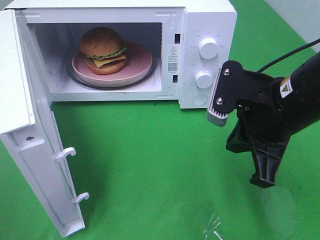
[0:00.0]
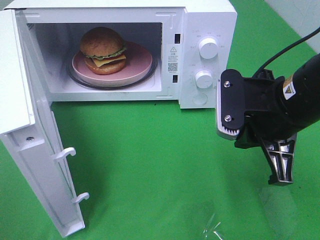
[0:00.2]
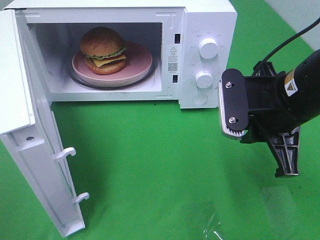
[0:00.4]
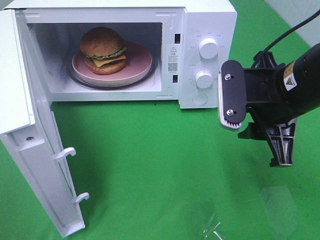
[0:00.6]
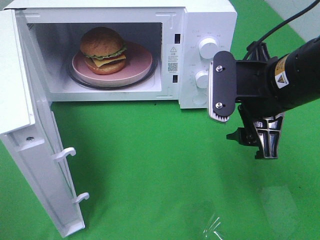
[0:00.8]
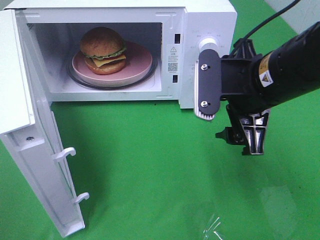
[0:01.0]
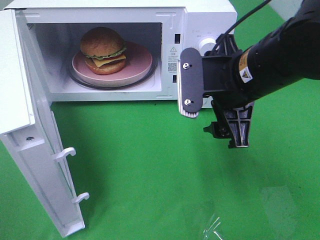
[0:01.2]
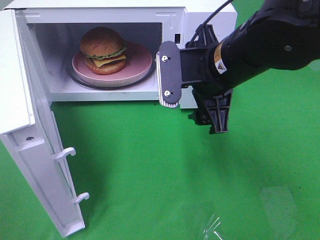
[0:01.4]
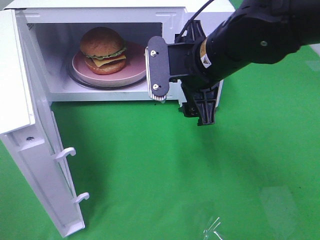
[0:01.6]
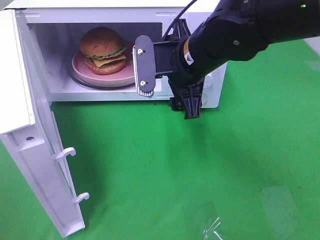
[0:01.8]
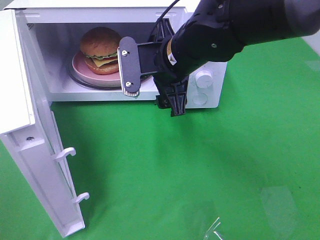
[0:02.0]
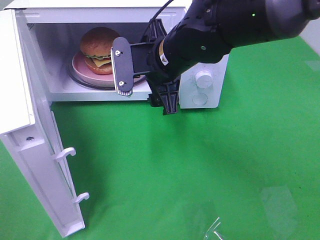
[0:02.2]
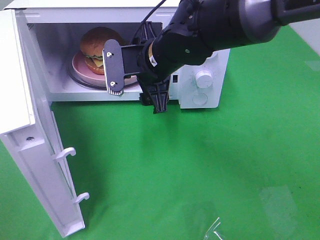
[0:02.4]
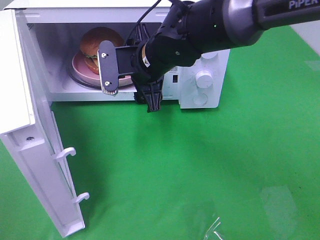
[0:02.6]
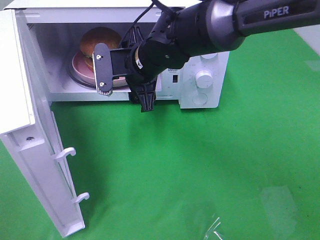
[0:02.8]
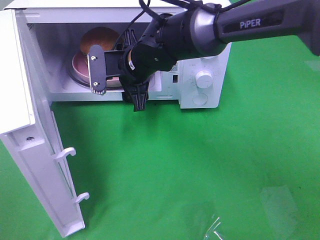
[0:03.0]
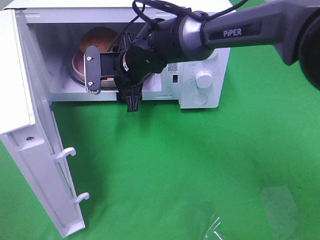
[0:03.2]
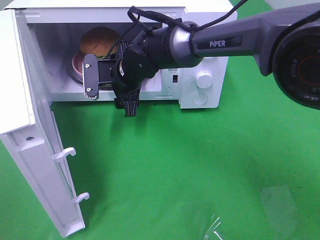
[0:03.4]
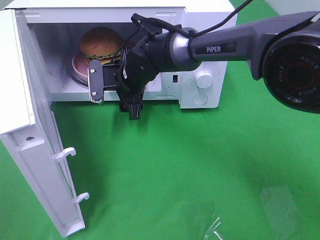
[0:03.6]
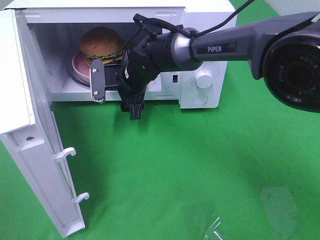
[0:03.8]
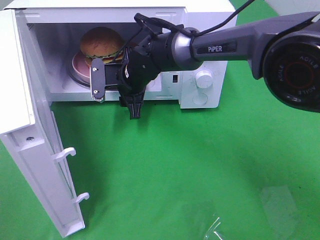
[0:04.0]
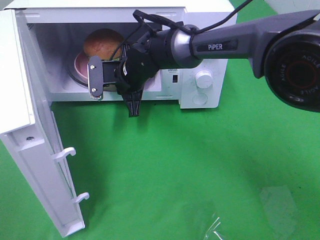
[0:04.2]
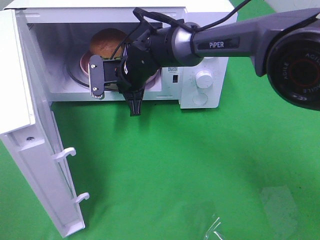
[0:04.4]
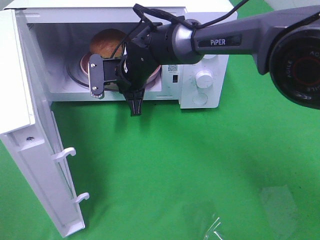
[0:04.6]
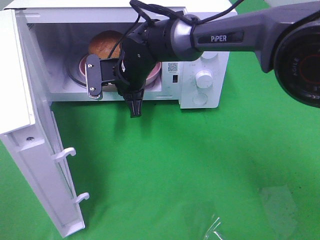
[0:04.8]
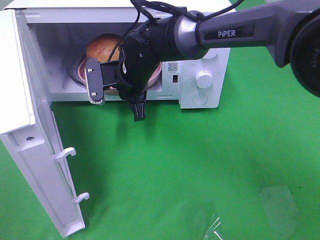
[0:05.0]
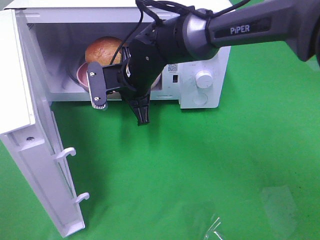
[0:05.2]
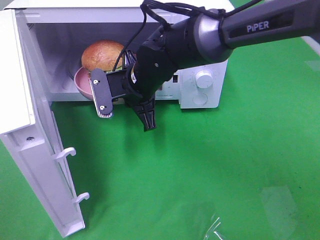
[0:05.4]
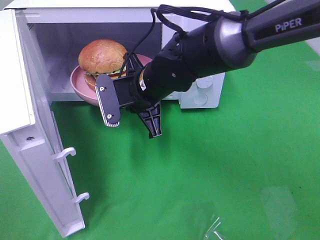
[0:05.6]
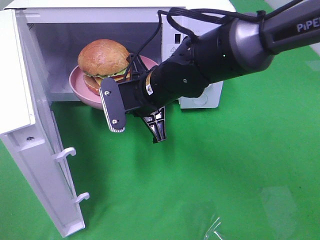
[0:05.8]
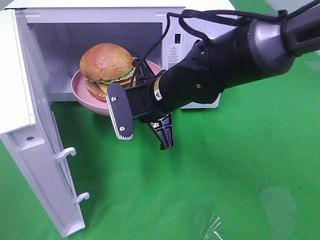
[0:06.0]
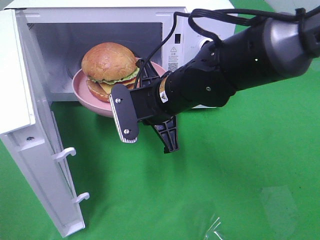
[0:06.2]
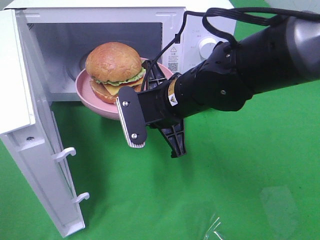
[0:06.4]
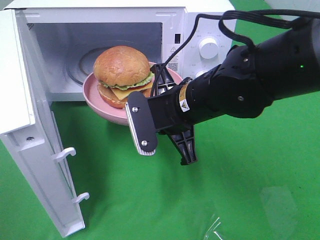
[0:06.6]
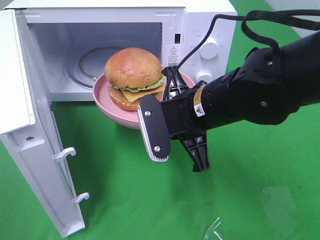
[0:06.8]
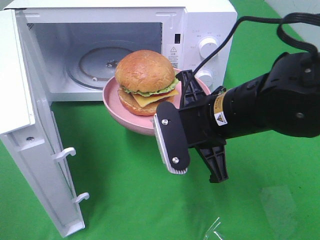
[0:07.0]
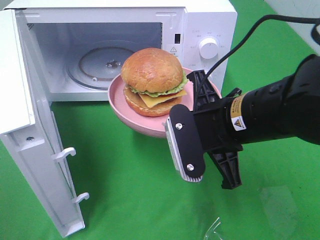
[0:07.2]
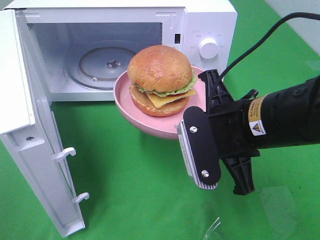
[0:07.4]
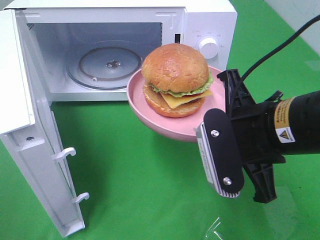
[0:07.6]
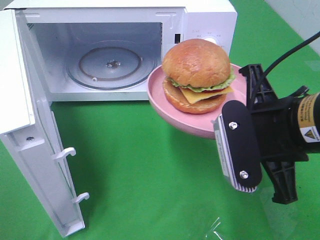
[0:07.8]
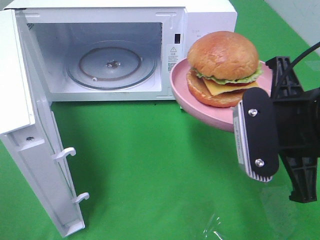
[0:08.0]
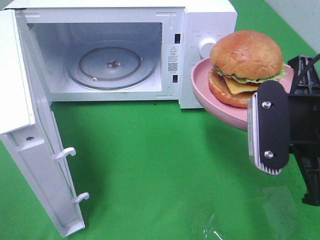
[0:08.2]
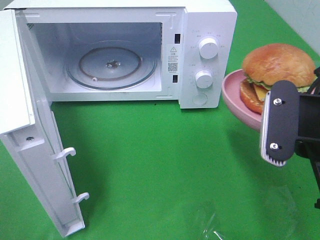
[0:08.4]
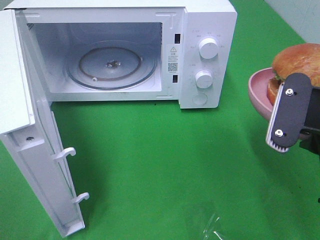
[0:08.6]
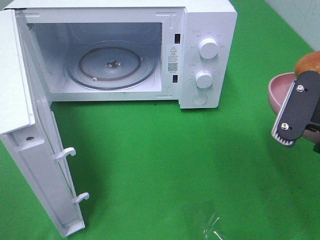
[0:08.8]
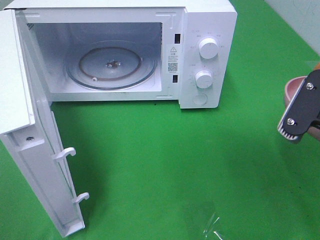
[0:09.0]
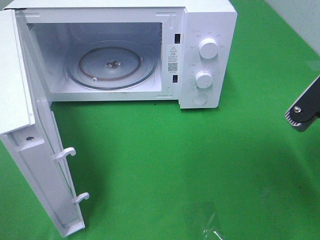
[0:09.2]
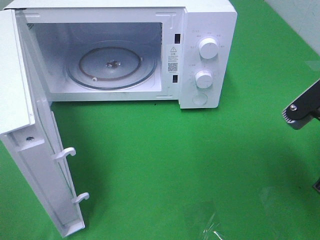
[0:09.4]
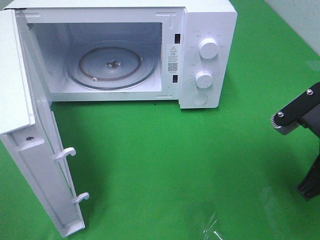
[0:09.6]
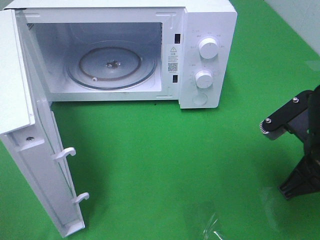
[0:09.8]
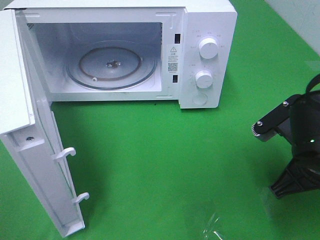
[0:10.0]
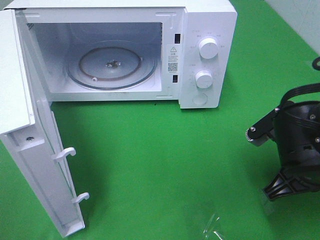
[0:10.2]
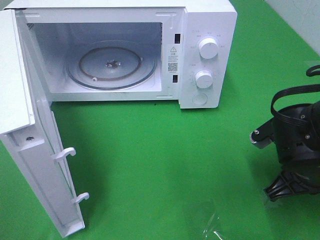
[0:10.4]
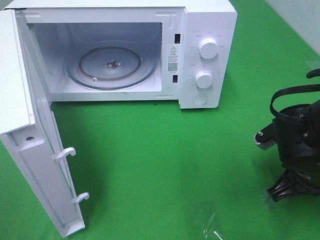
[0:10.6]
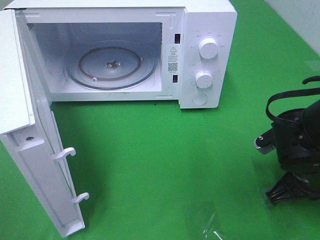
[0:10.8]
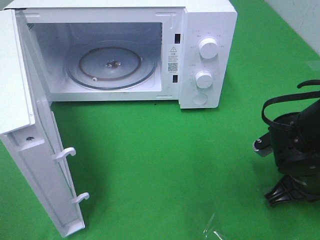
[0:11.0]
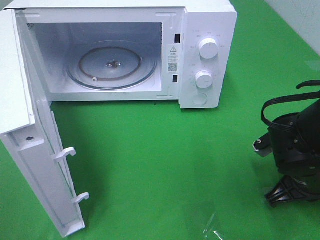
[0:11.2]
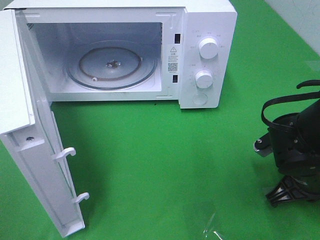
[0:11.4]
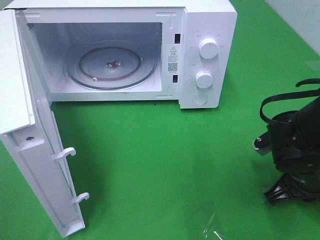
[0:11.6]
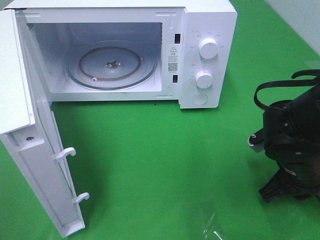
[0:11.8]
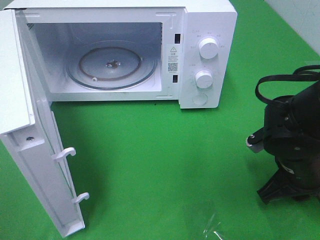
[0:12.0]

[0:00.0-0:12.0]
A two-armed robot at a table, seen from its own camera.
Task of the whole recording: Heat the burger.
Step, 0:00.0 to 0:04.4: Right hand: grab the plate with the hamburger.
0:00.0 to 0:01.6: The right gripper travels to the left and forward by approximately 10 cm, and opens its fingers.
0:01.6 to 0:03.0: The right gripper is displaced to the left, forward and downward by approximately 15 cm.
0:03.0 to 0:04.4: The right gripper closes up.
0:04.4 to 0:06.0: The right gripper travels backward and to the right by roughly 15 cm.
0:06.0 to 0:07.6: The right gripper travels backward, to the right and upward by approximately 20 cm.
0:07.6 to 0:09.0: The right gripper travels to the right by approximately 10 cm.
0:09.0 to 0:10.4: The right gripper heads downward and forward, covering about 15 cm.
0:10.4 to 0:12.0: The grippers move only a little.

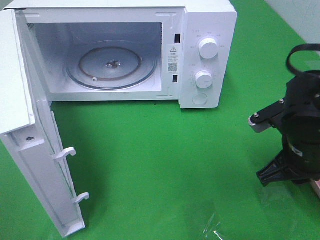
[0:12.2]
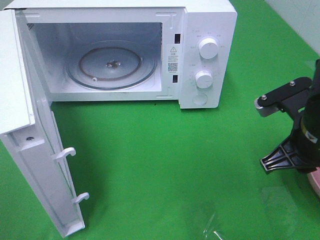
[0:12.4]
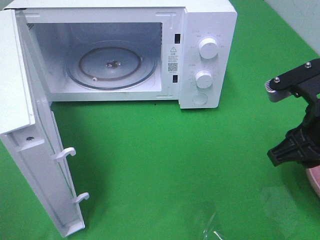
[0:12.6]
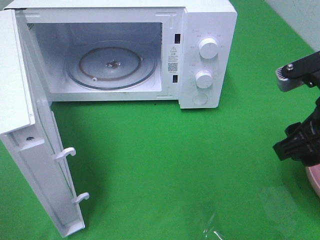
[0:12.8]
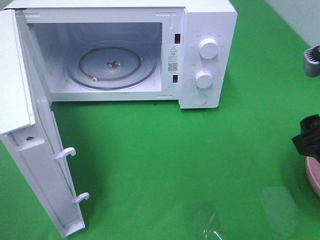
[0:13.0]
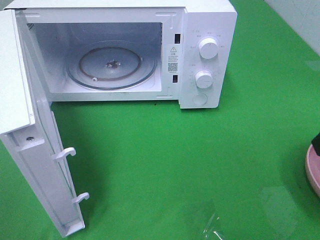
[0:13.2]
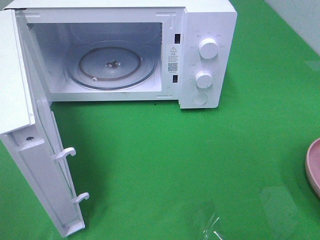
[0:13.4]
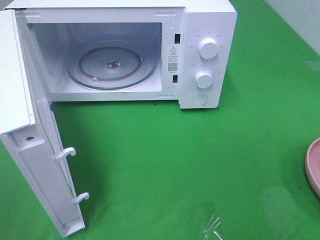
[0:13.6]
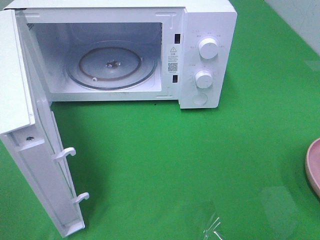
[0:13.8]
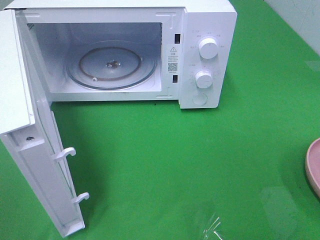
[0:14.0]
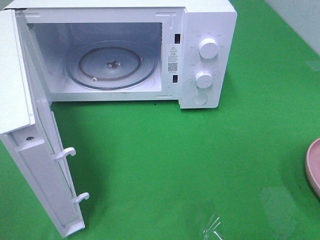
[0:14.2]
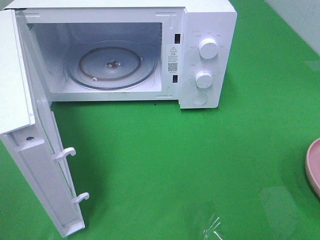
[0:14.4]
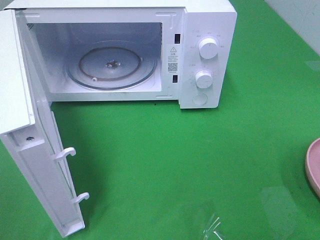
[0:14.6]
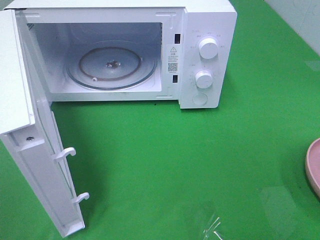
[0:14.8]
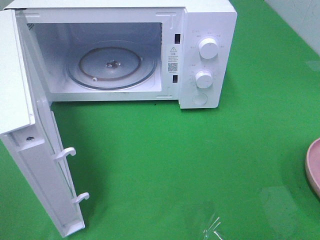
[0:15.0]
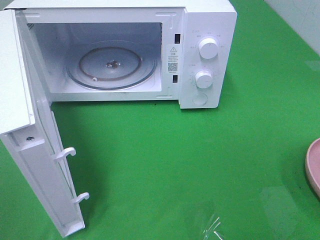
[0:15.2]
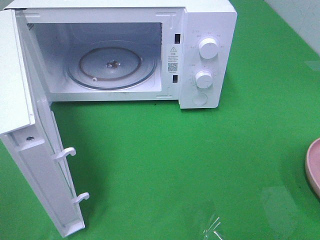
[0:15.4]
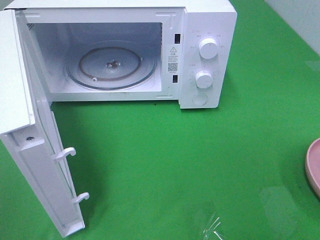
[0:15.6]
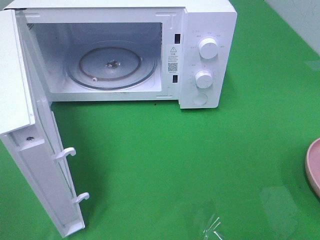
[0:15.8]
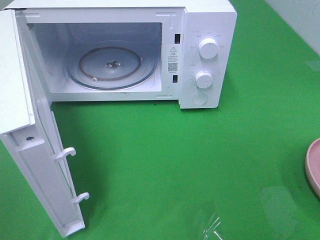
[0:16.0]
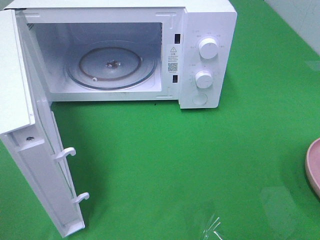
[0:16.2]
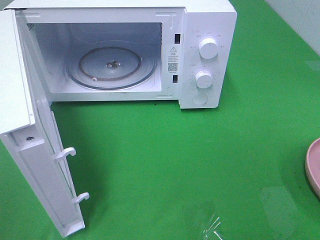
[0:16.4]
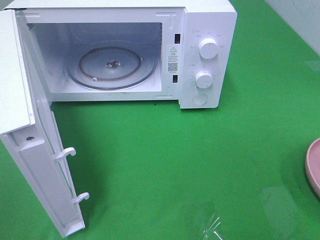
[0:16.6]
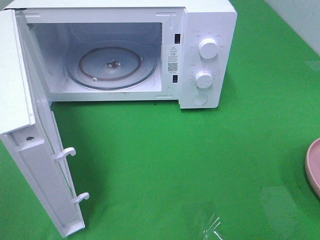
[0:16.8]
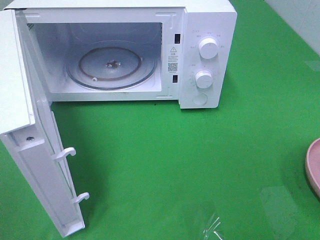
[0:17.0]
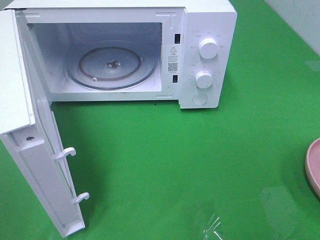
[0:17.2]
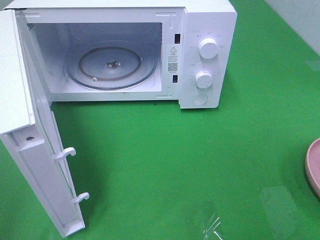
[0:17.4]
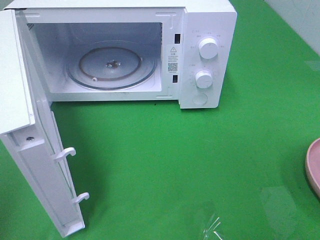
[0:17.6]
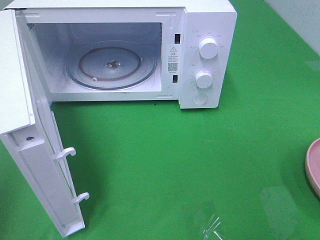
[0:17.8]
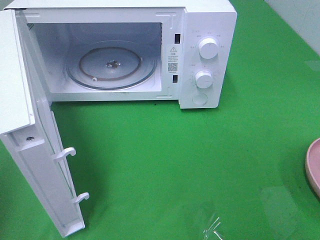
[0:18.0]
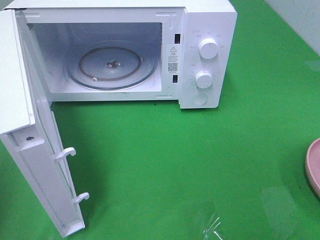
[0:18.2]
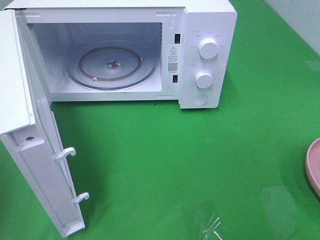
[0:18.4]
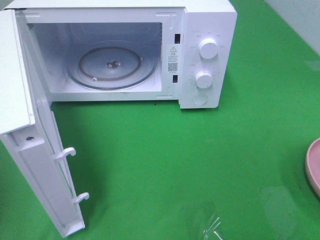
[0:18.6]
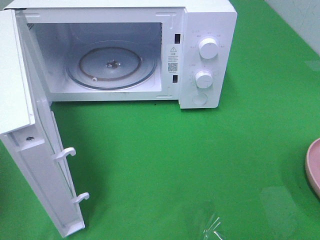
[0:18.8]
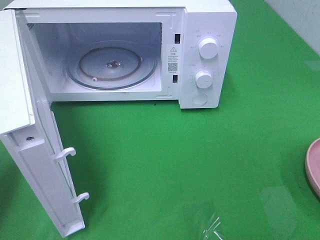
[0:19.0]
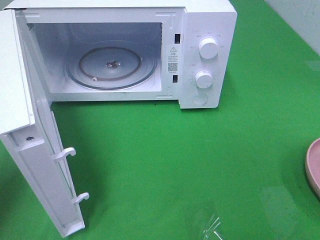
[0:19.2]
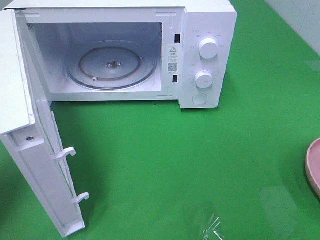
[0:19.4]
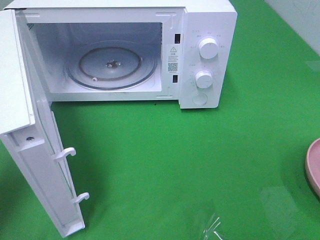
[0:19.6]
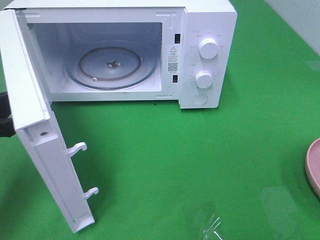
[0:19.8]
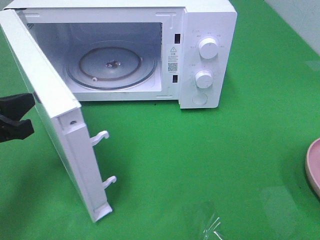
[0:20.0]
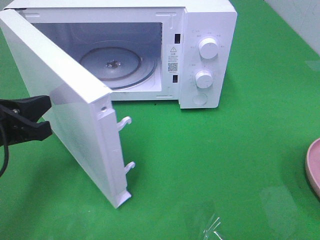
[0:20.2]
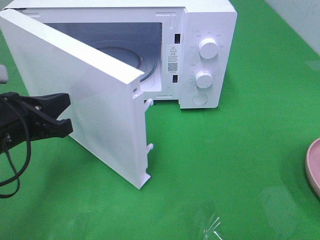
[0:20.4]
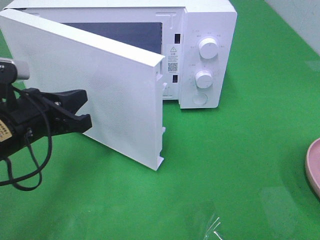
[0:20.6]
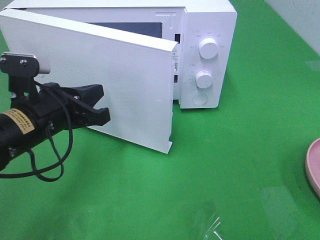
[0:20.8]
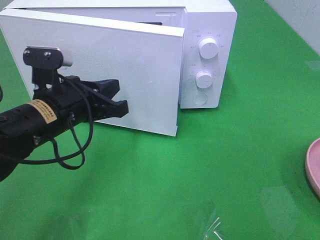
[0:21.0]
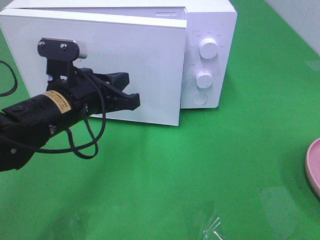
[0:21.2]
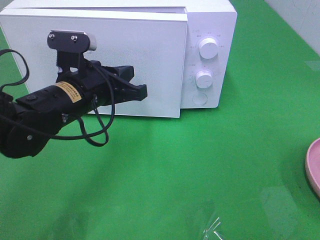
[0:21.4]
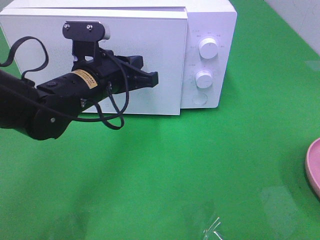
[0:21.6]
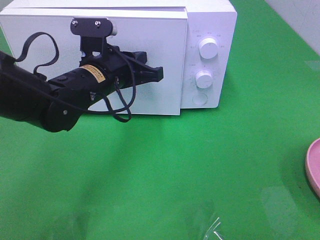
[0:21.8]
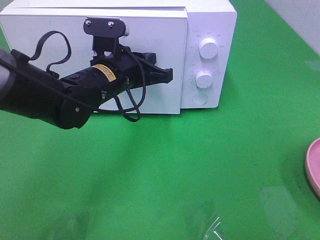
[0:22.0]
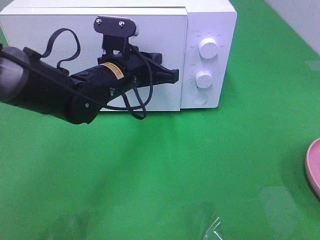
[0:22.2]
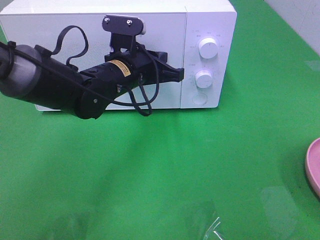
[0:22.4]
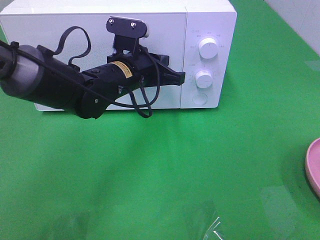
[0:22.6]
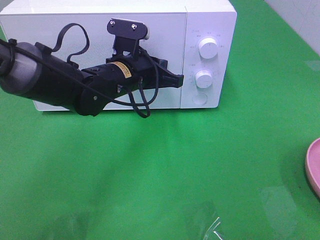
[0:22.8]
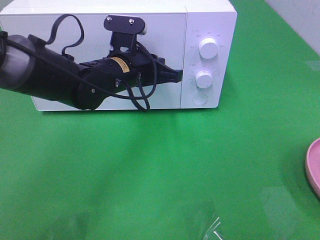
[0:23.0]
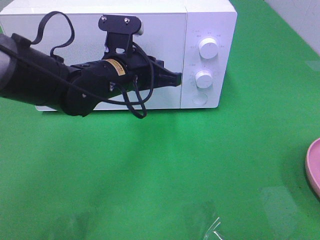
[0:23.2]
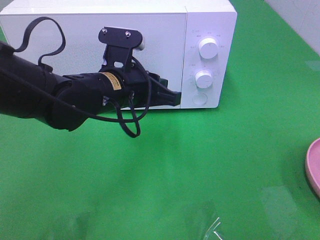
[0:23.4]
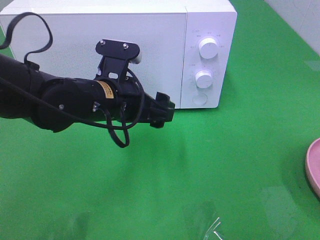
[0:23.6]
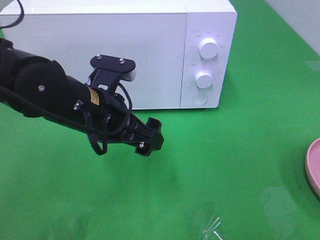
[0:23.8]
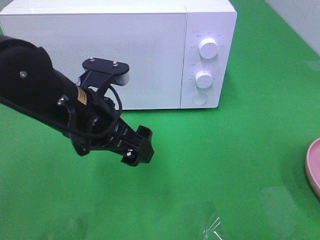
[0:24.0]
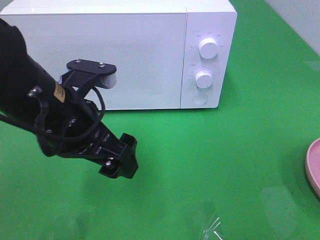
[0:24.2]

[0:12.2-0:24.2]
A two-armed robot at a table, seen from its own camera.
Task of the whole recording: Heat the burger.
Step, 0:12.6 to 0:23.4: Left hand: close the microwave door.
0:12.2 to 0:13.8: The right gripper travels upward, backward and to the right by about 25 cm, and opens its fingers.
0:15.2 to 0:16.6: The two grippers keep their place.
0:18.2 to 0:19.8: The left gripper goes approximately 15 cm downward, forward and to the right.
0:19.8 to 0:21.2: The left gripper heads to the right and forward, covering roughly 15 cm.
0:21.2 to 0:22.6: The left gripper goes some 10 cm forward and to the right.
0:22.6 to 0:24.2: The left gripper travels backward, to the left and upward by approximately 15 cm, and opens.
